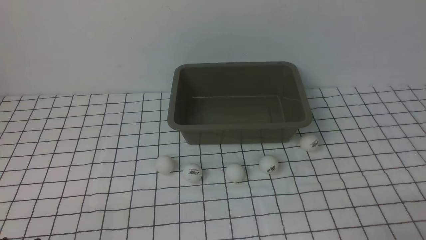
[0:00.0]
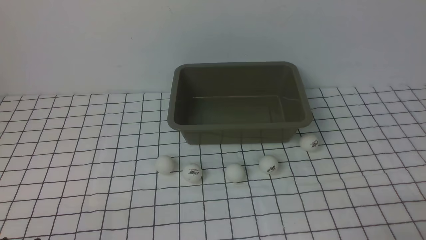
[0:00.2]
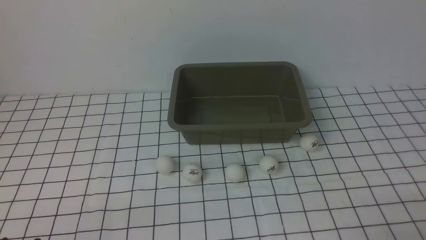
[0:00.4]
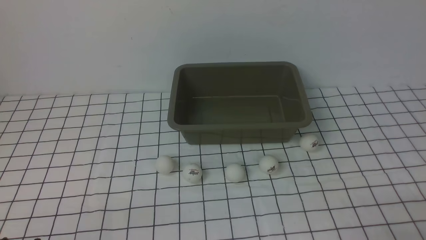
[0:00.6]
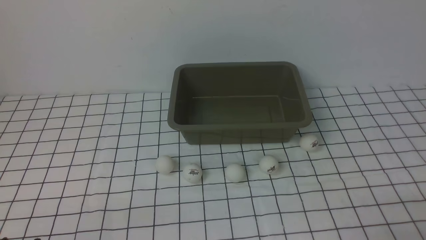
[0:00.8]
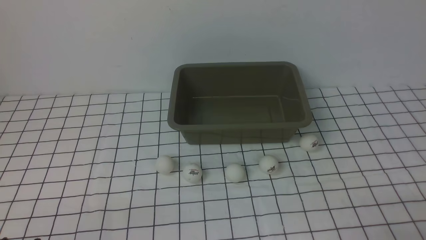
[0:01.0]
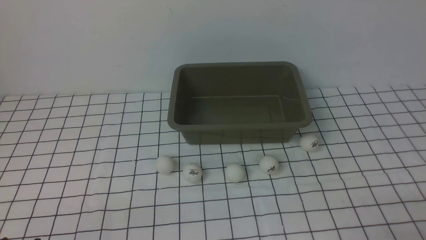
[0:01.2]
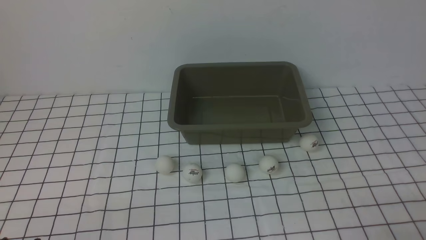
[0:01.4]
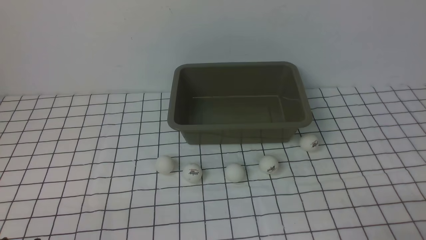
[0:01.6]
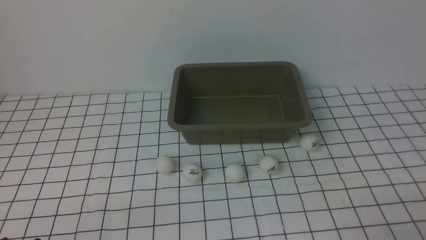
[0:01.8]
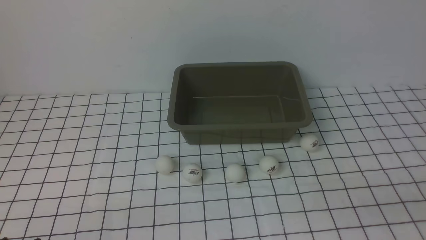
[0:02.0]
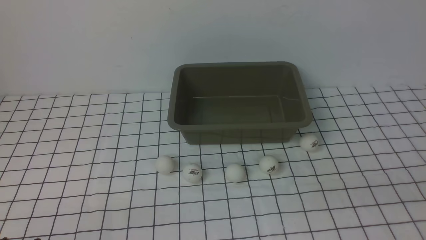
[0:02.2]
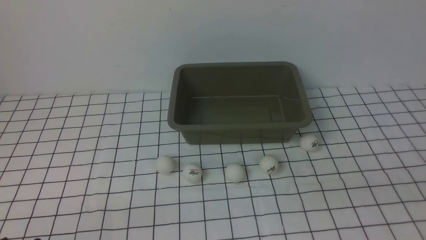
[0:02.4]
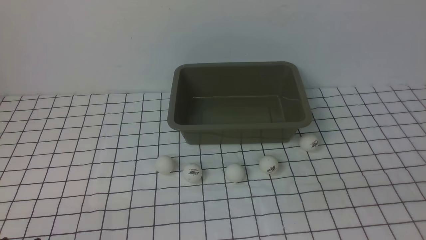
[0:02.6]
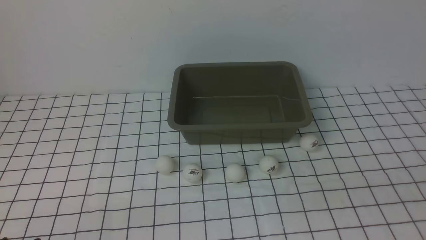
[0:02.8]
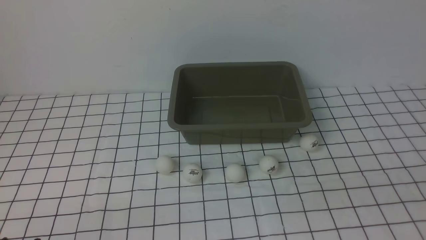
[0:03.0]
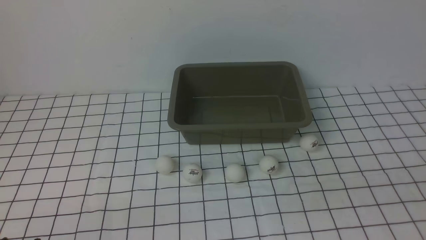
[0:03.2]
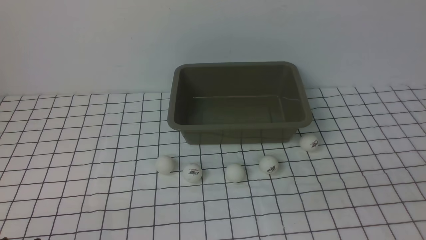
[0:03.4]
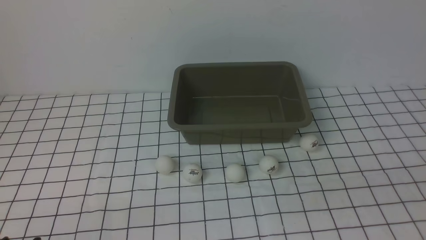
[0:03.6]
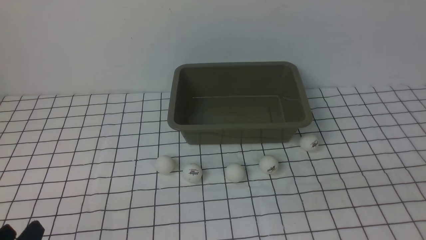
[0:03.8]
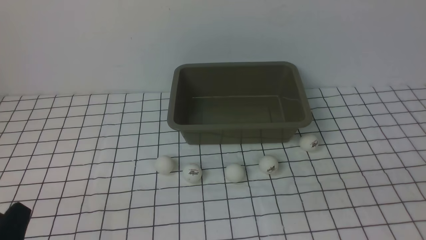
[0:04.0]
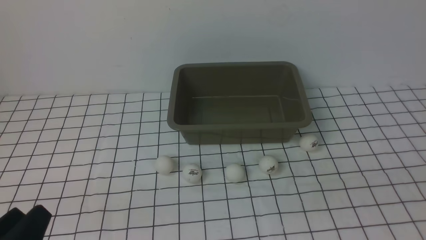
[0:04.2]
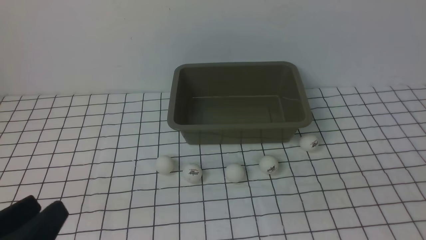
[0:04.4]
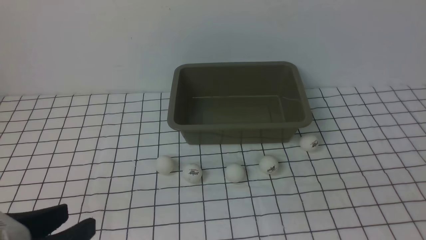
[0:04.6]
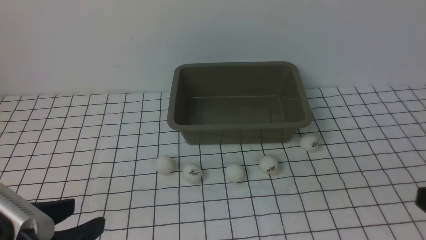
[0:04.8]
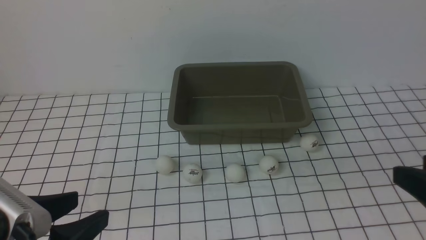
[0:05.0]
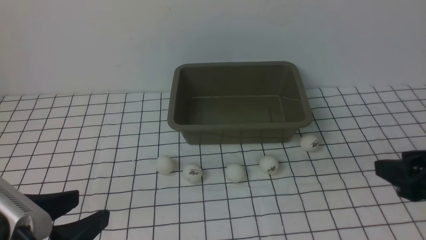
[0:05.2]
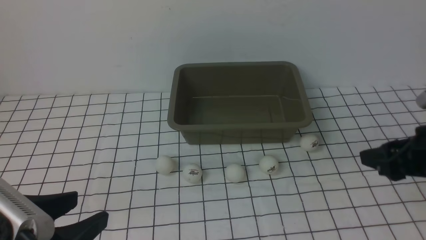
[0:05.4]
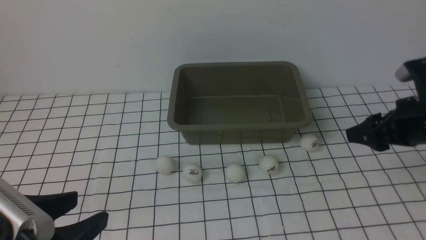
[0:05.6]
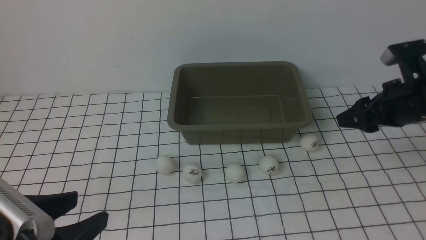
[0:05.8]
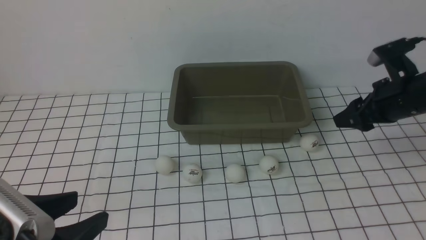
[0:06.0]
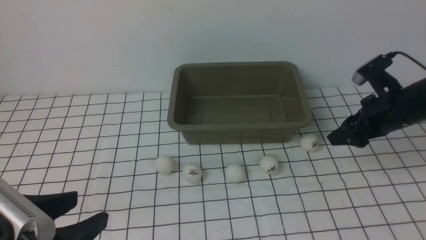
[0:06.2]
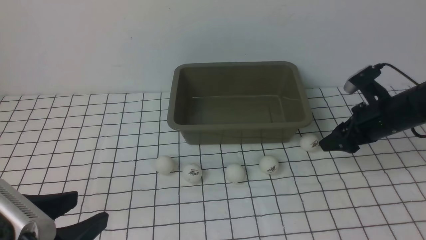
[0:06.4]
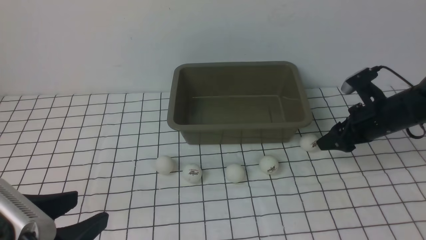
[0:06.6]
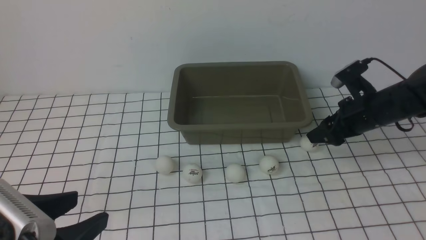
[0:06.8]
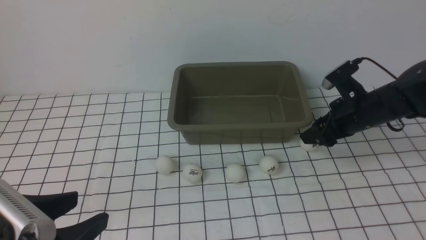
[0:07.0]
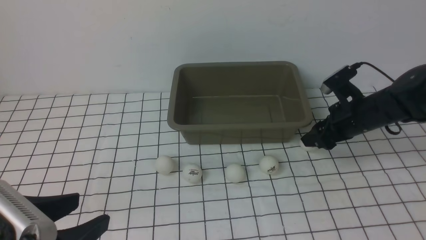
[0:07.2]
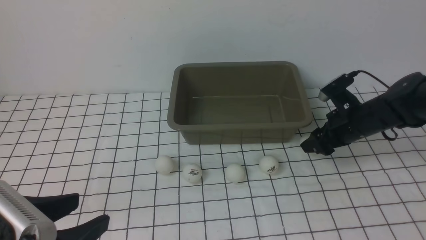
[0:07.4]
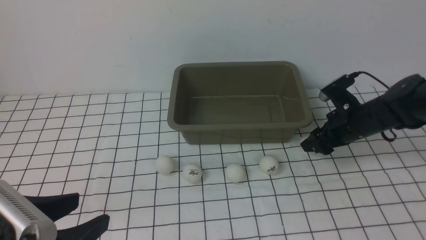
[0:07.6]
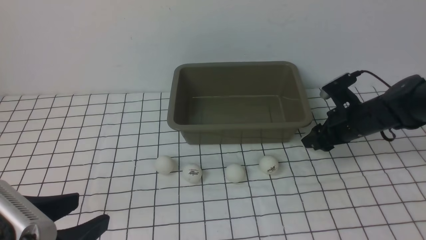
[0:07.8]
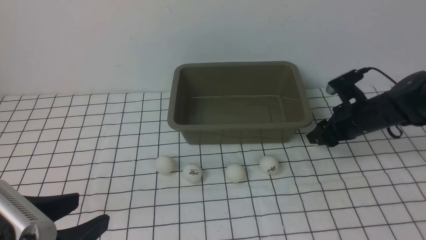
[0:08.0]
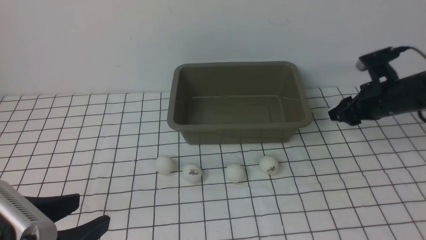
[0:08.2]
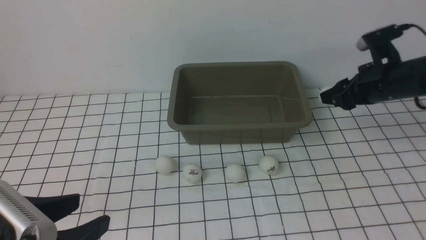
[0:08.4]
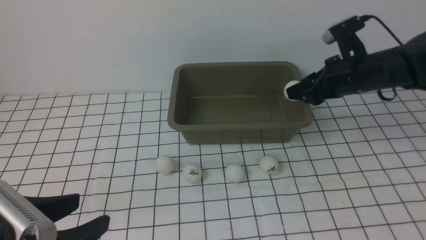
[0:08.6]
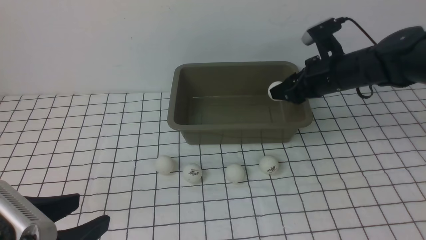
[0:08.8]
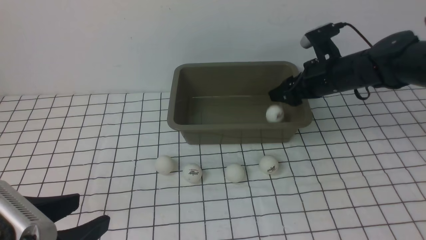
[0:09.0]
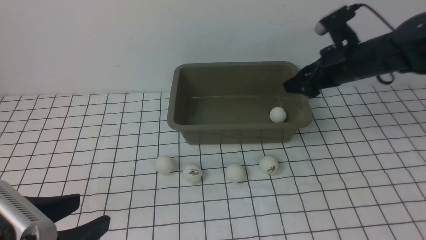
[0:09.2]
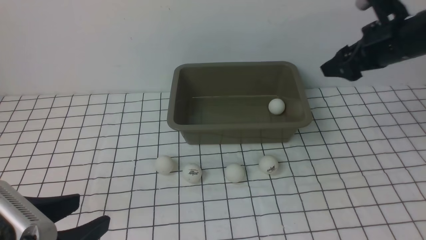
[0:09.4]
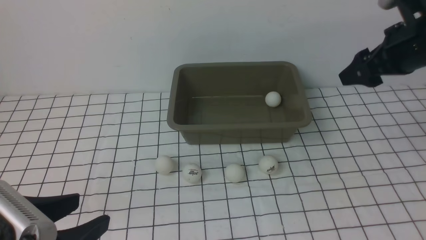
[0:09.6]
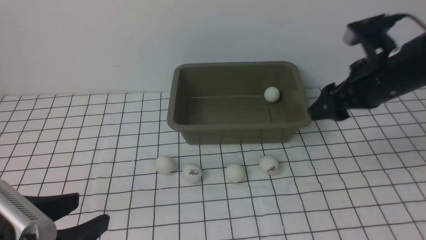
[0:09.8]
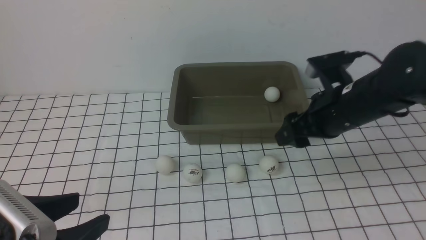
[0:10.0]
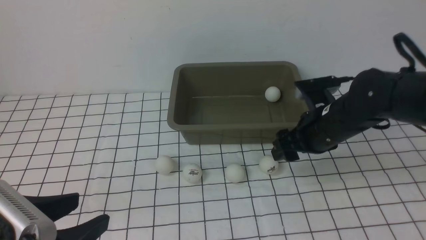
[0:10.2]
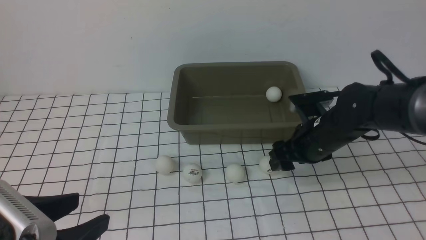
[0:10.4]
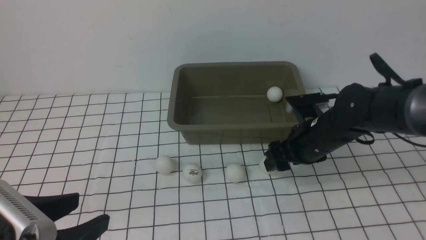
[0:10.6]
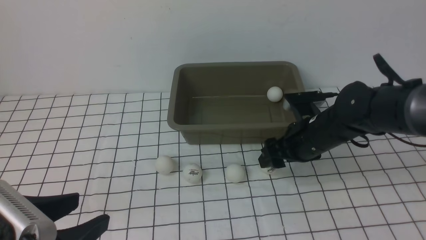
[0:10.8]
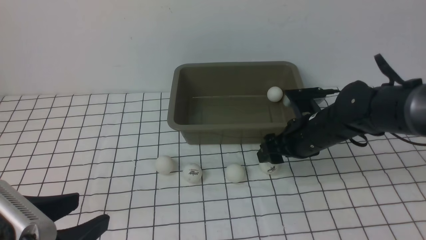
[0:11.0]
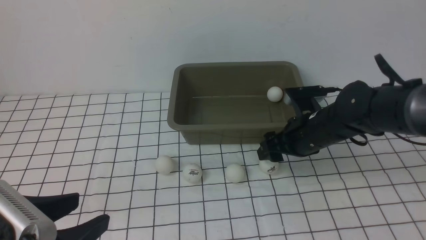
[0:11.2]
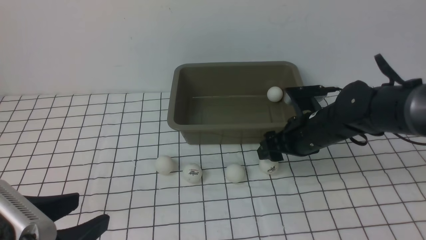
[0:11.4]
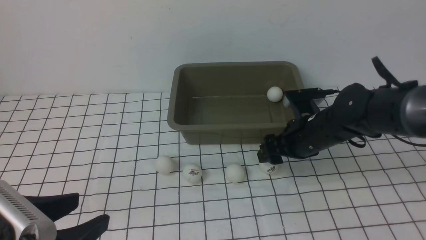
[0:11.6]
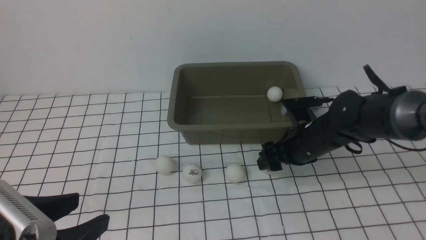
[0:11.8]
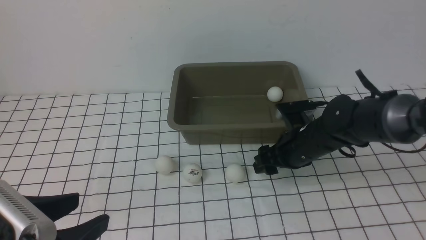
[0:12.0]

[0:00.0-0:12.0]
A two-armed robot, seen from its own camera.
Step, 0:00.0 to 0:08.0: use the right arm to clamp the table tennis ball closest to it.
Step, 0:08.4 to 0:09.0: use the right arm to put the table tennis ball into the box.
0:00.0 to 0:01.6: Both grippers stay about where they are.
0:03.0 to 0:04.4: The left gripper is displaced upward by roughly 10 cm.
0:04.4 to 0:06.0: The right gripper shifts roughly 35 cm forward, and opens, while the left gripper opens its fingers.
0:06.0 to 0:07.6: The right gripper shifts some 10 cm downward and forward.
0:07.6 to 0:09.0: The right gripper travels upward by some 10 cm.
0:09.0 to 0:10.4: The right gripper heads downward, to the left and backward, covering approximately 15 cm.
0:10.4 to 0:12.0: The right gripper closes up.

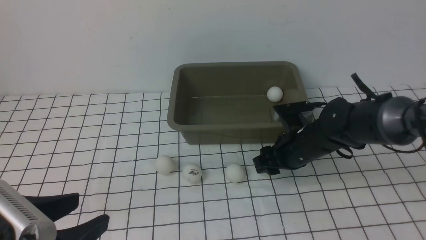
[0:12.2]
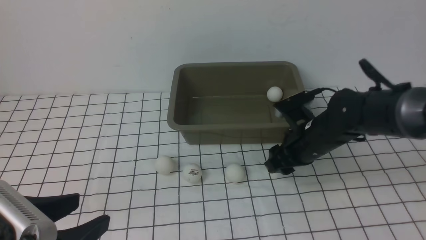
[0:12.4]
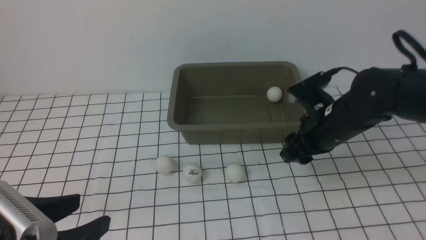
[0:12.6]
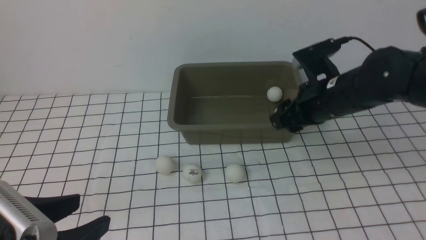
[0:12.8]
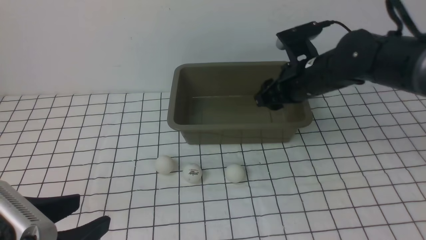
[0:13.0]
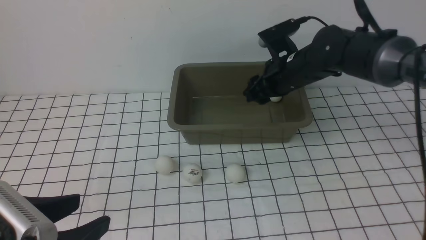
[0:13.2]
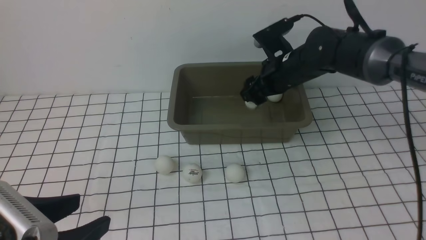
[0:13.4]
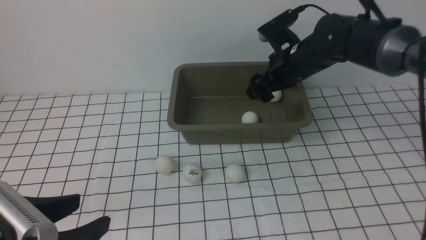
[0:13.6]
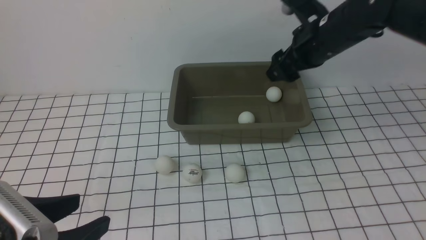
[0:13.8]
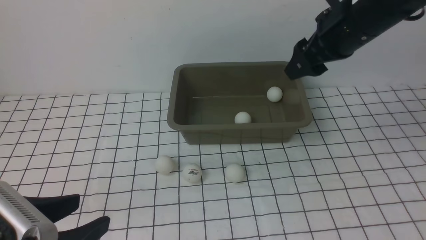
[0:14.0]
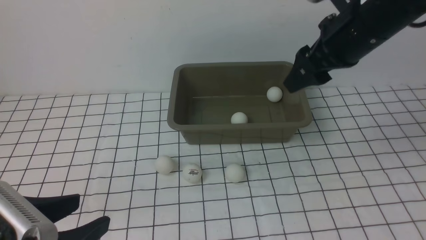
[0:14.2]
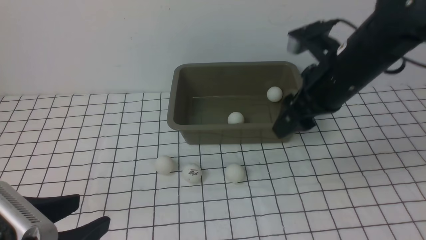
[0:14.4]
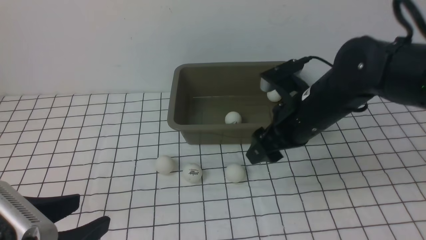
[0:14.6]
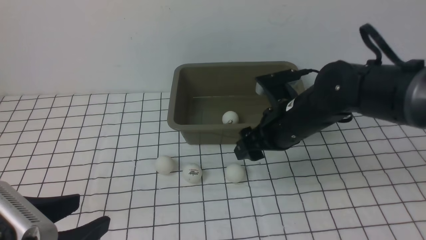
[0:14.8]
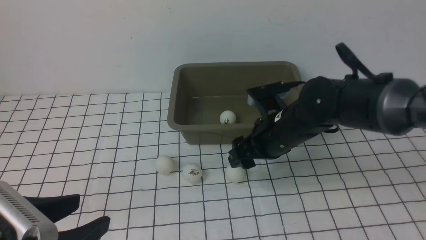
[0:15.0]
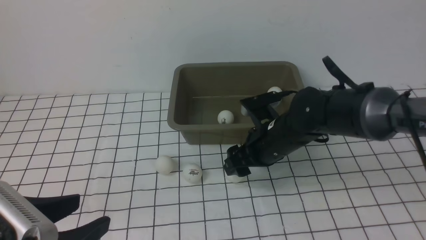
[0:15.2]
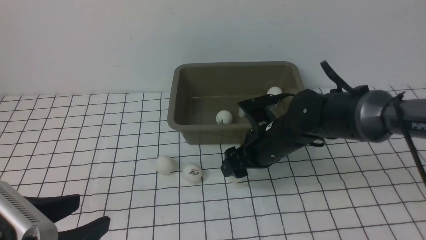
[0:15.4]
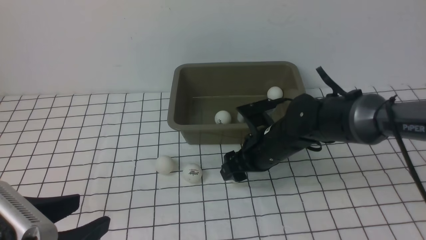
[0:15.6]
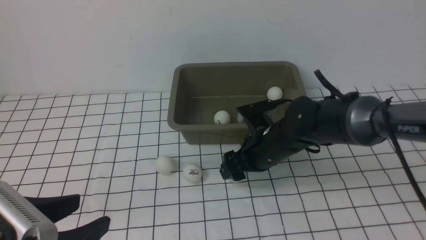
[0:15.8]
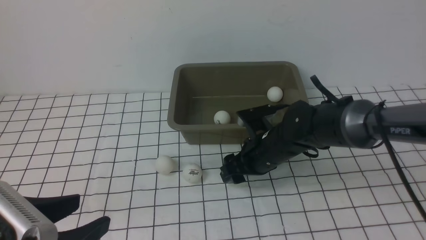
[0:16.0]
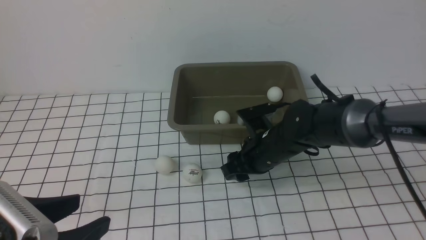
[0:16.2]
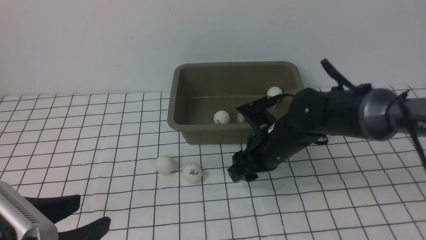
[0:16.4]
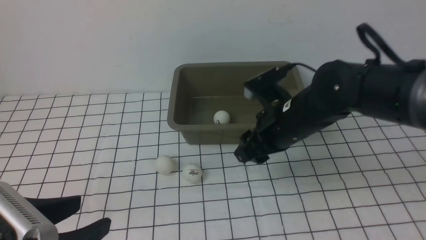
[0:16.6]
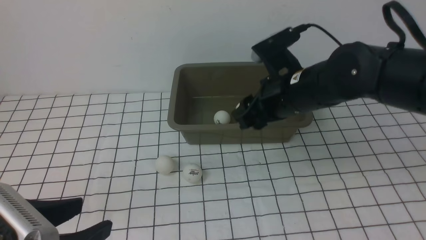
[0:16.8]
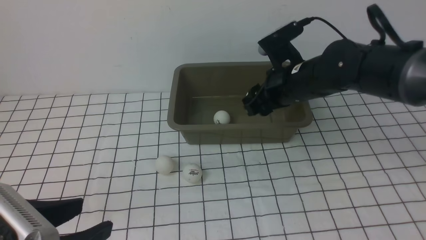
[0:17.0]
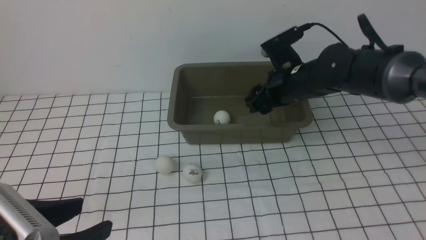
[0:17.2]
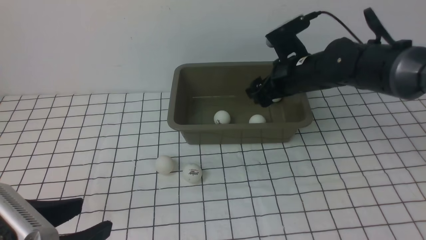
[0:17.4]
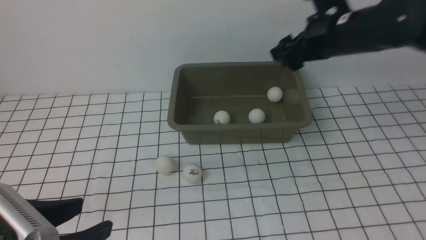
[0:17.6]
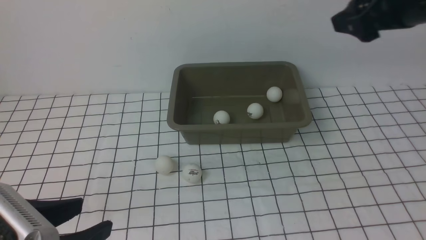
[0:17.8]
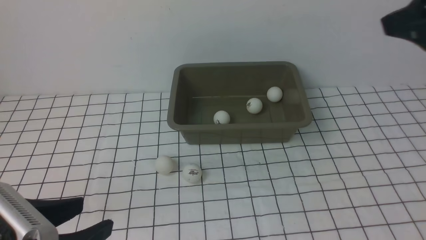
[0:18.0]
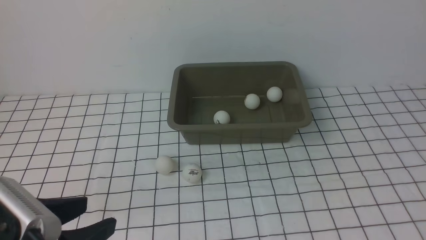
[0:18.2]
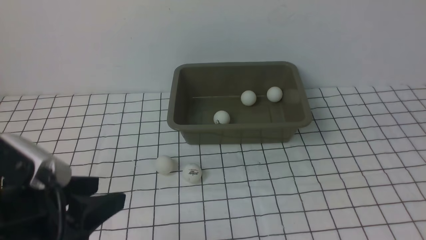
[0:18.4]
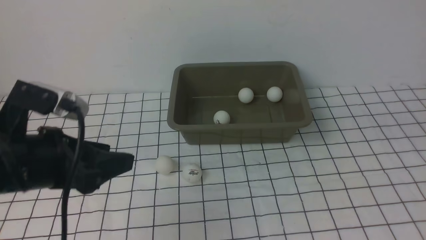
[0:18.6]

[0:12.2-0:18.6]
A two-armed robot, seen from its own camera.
Step, 0:12.8 to 0:13.6: use the right arm to put the table tennis ball into the box.
Step, 0:13.8 to 0:16.4: use the right arm to clamp the table tennis ball closest to it.
Step, 0:16.6 to 0:17.4: use the right arm to put the table tennis ball into the box.
0:12.2 to 0:13.8: The right gripper travels upward by some 5 cm.
0:13.8 to 0:15.4: The right gripper shifts about 15 cm downward and to the left.
0:15.4 to 0:17.0: The right gripper goes some 10 cm upward, and closes its fingers.
0:17.0 to 0:18.6: The left gripper is displaced forward by roughly 15 cm. The right gripper moves backward, upward and to the right, approximately 35 cm.
